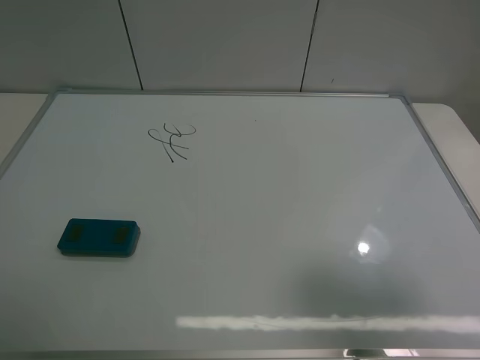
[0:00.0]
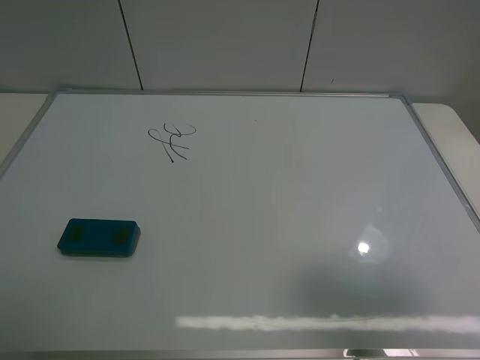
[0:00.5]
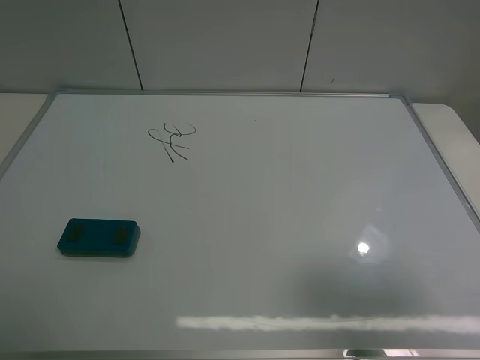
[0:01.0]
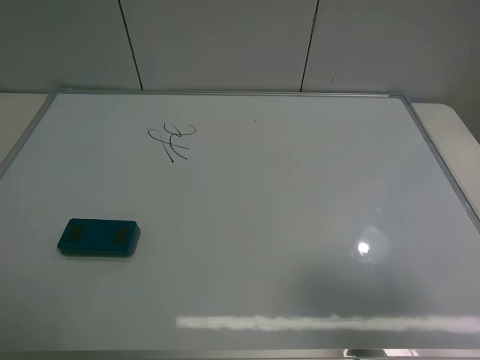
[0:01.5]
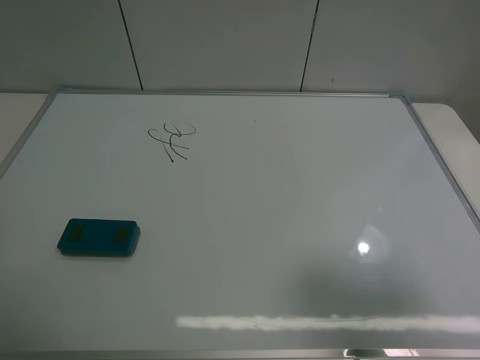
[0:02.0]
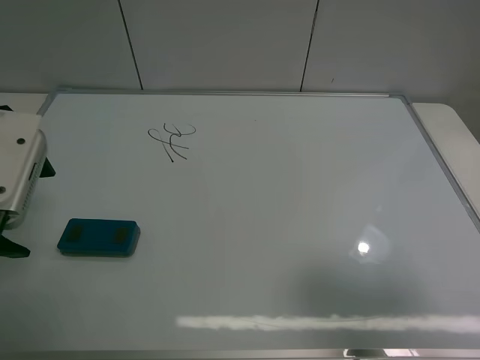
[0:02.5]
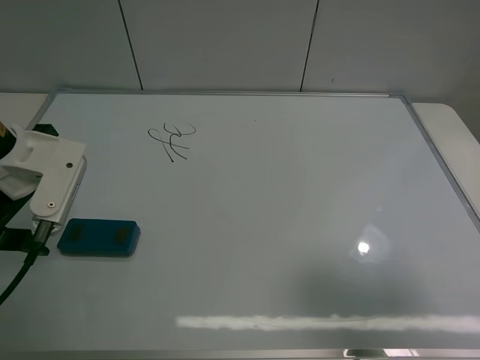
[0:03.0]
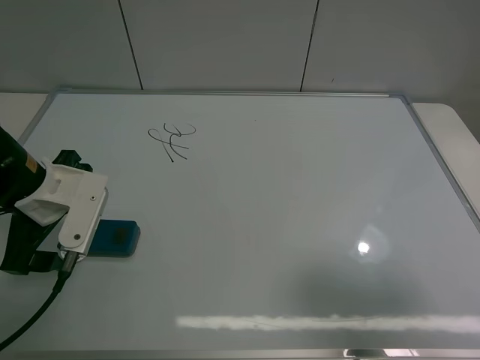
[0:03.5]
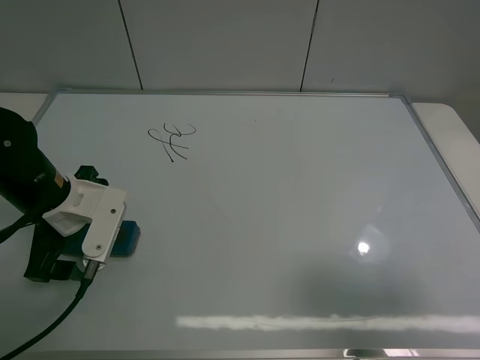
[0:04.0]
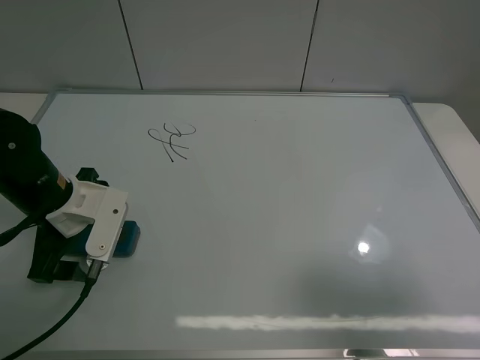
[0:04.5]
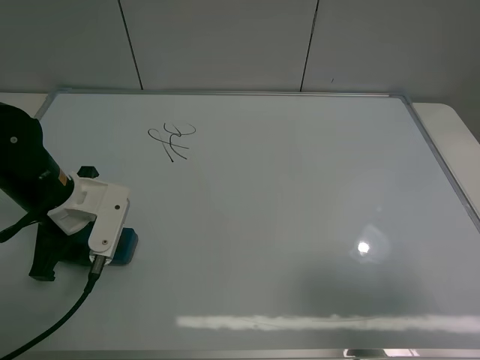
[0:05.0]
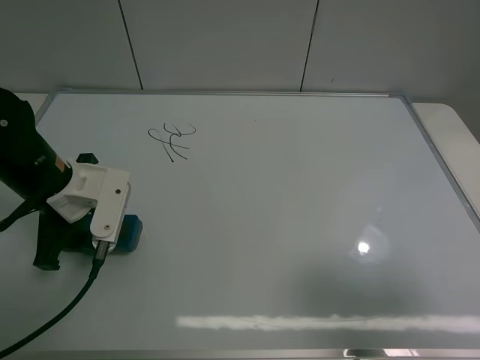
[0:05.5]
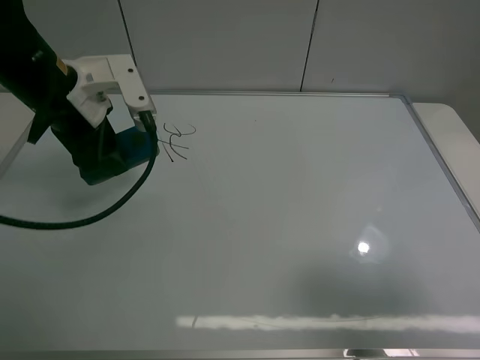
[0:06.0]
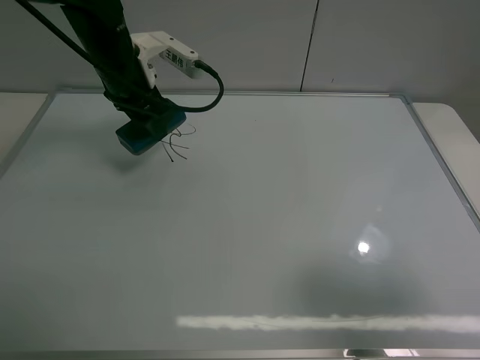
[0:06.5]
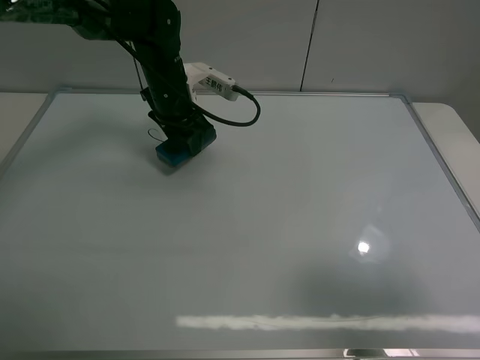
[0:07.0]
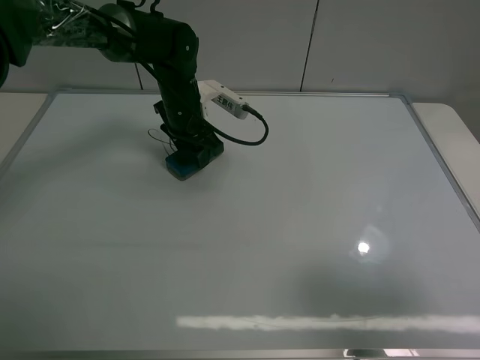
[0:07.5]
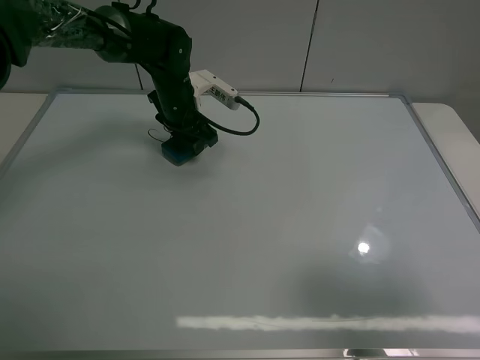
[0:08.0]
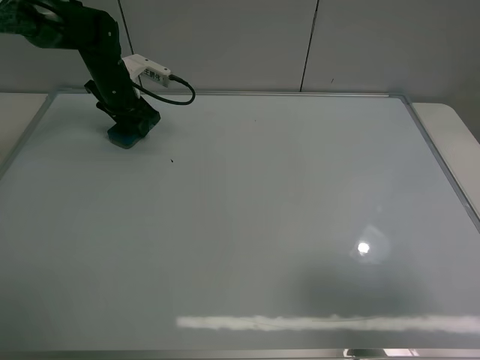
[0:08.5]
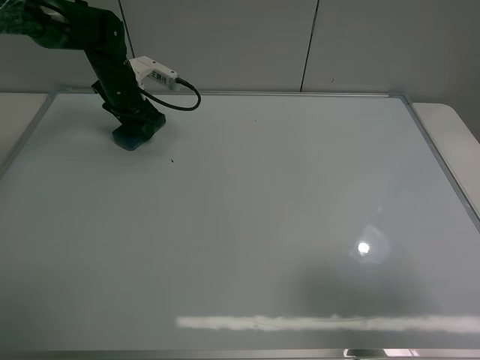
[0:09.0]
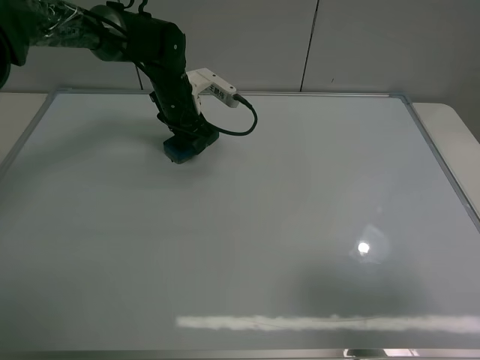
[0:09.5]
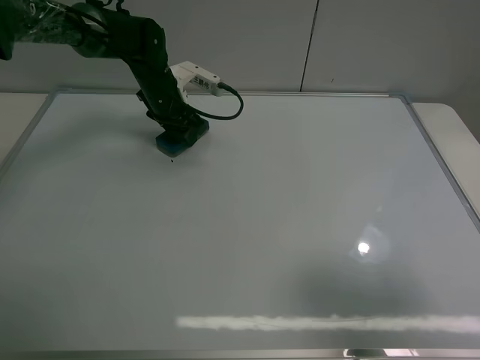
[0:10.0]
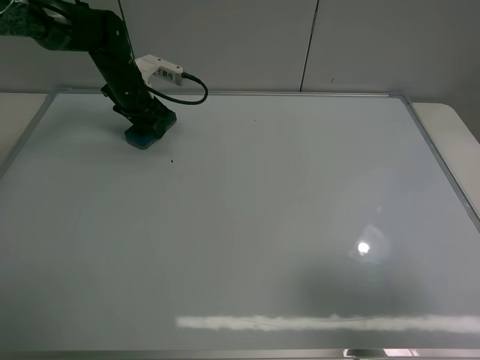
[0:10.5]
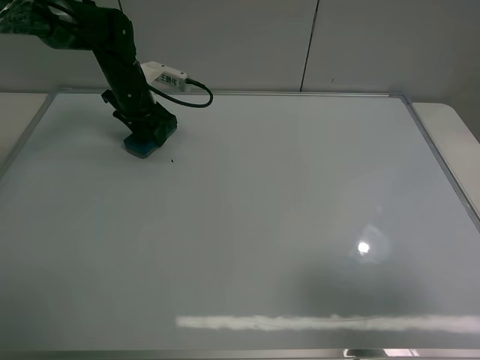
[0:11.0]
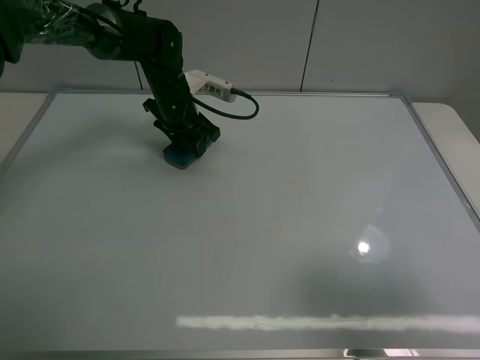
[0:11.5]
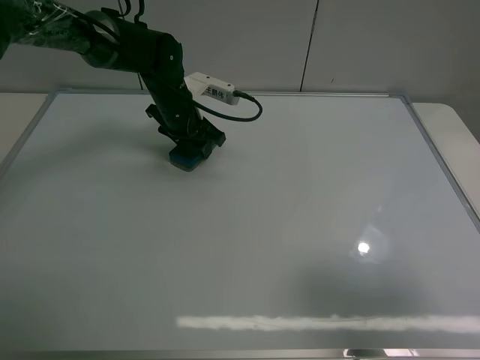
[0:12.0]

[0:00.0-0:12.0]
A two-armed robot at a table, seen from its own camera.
Task of the whole recording: use the left claw to pick up the whiteboard eraser, wipe the notes on the whiteboard clean, and then put them back in place.
Step, 0:00.0 to 0:04.5: Grasp the eraser with the left gripper.
0:02.0 to 0:04.0: The left gripper travels downward and forward by some 20 cm.
0:04.0 to 0:06.0: The left gripper is displaced upward and forward by some 10 cm, and closes its fingers.
0:06.0 to 0:08.0: The left gripper is displaced forward, downward and to the right by approximately 20 cm.
0:08.0 to 0:10.0: The left gripper goes left and right, approximately 10 cm each way, reversing 2 times.
0:10.0 to 0:12.0: The left gripper shifts by about 5 cm.

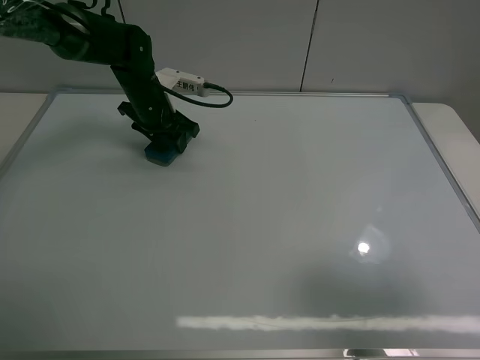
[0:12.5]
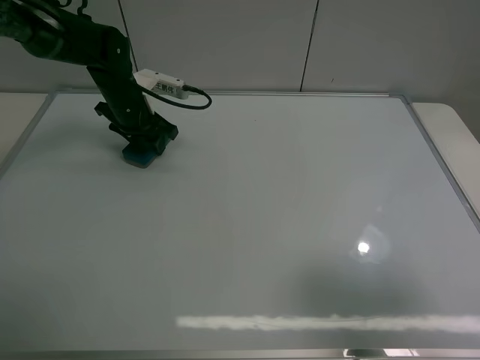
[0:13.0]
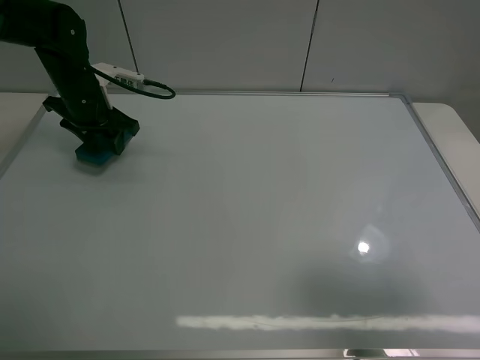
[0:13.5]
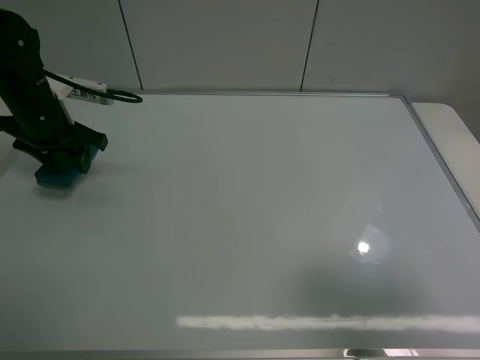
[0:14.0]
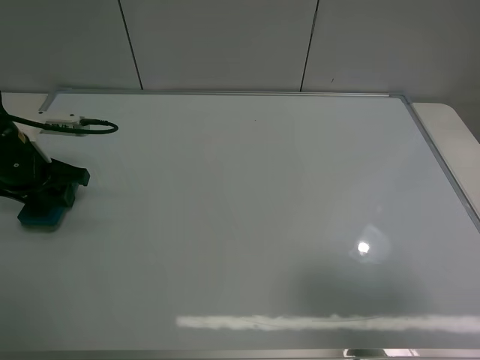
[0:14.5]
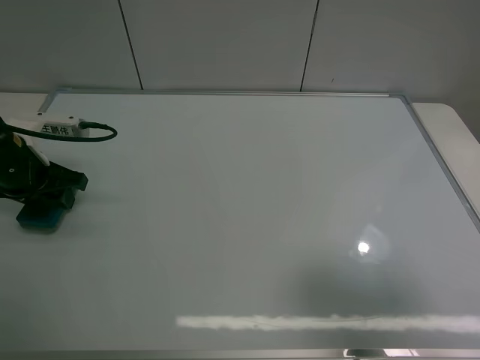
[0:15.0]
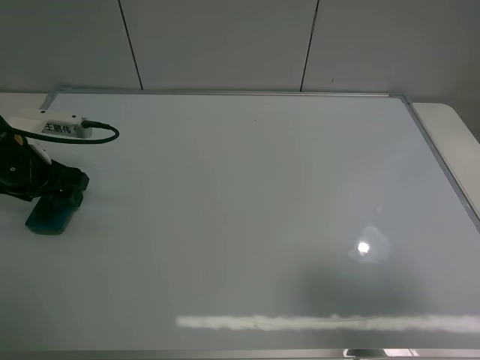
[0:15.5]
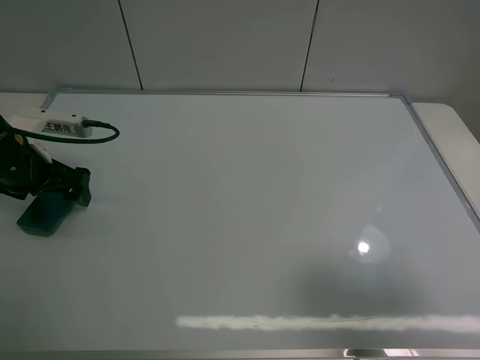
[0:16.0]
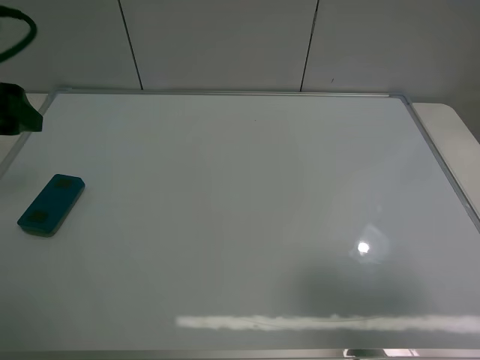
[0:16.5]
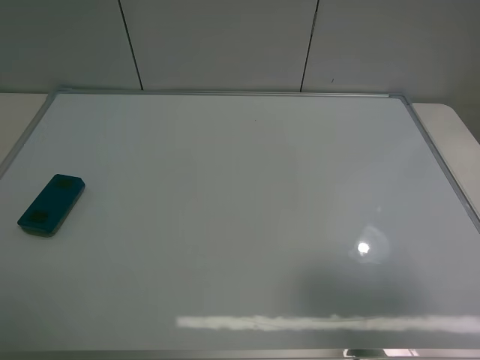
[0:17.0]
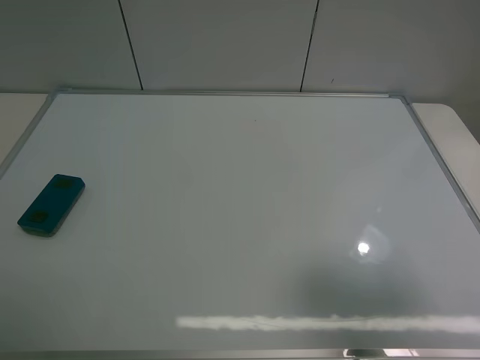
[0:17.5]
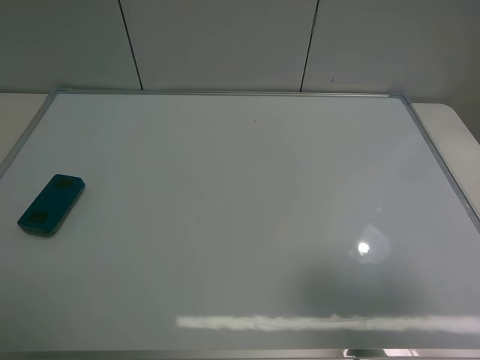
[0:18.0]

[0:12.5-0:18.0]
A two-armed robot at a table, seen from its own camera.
Task of the whole recording: use the left claw to pick up the whiteboard eraser, wipe the notes on the whiteboard clean, and then put them back in place.
Step, 0:13.0 to 0:15.5: Place the eraser with the left gripper.
0:12.5 to 0:14.5: The left gripper shifts about 20 cm backward and to the left.
0:14.5 to 0:16.0: The left gripper opens.
0:16.0 to 0:18.0: The left gripper heads backward and upward, covering approximately 30 cm.
